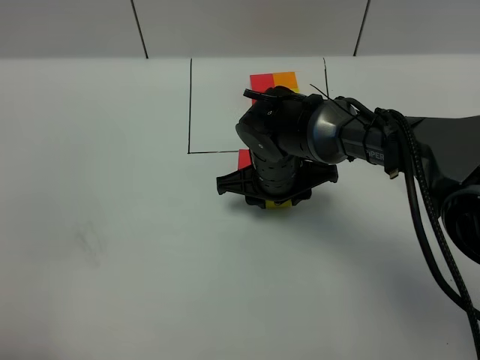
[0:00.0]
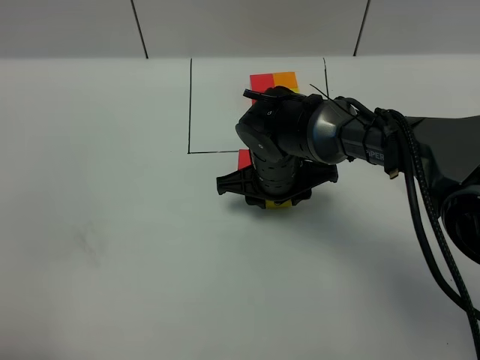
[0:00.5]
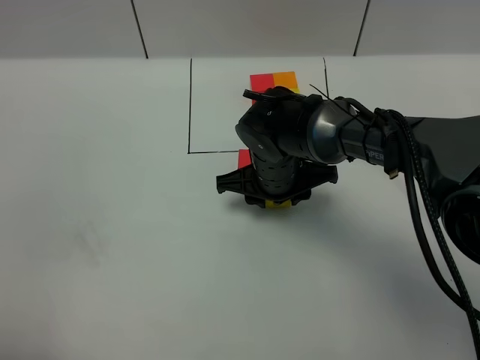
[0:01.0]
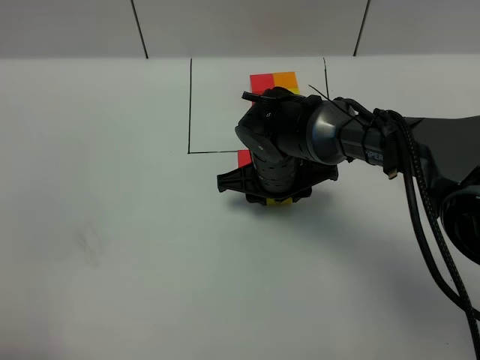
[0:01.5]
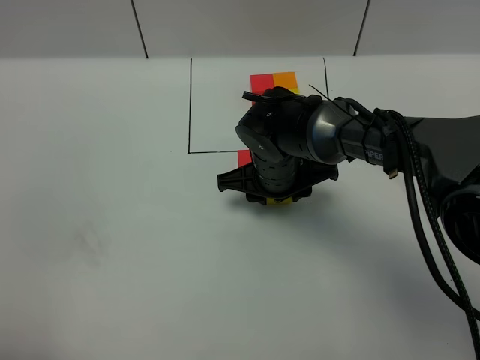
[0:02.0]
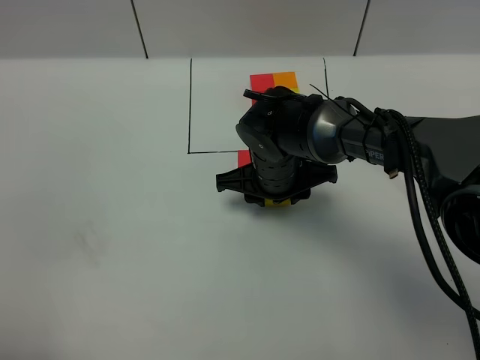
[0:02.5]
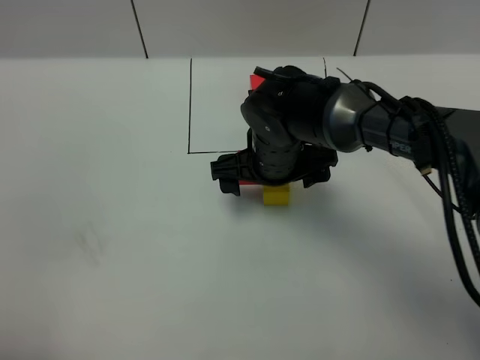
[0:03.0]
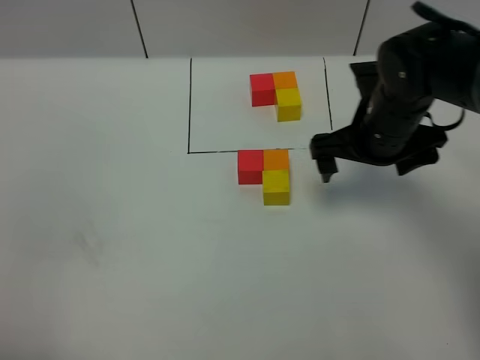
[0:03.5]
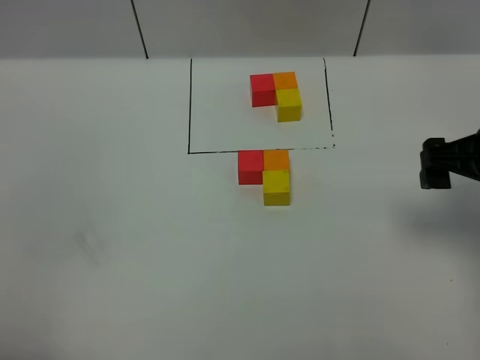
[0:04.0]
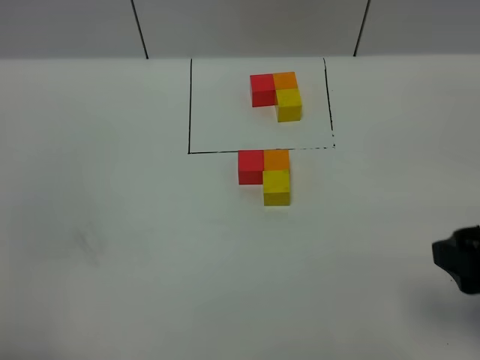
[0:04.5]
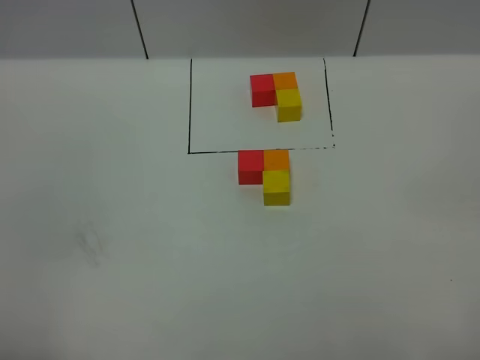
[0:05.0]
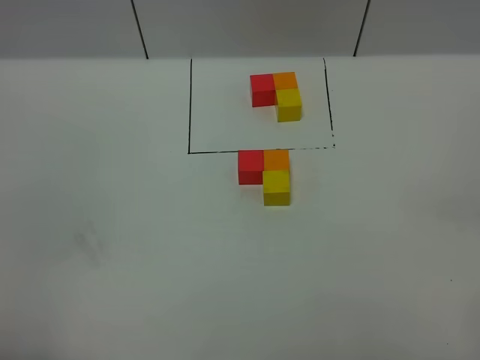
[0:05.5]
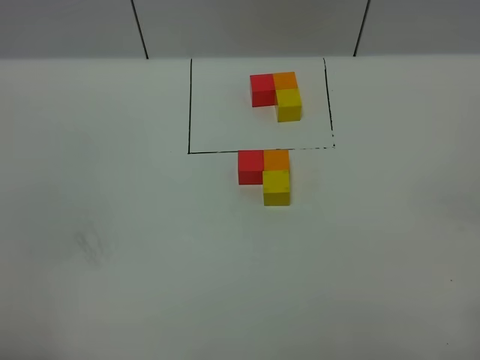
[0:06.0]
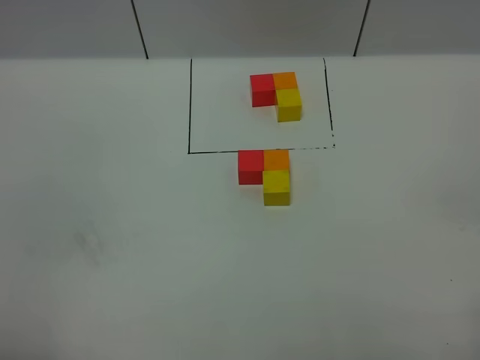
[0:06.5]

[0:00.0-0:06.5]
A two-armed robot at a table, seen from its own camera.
Task of the whole recording: According to the building block template in front, assemble the scattered blocks together.
Step, 0:00.0 to 0:02.5: Put the yellow build block on the behind of the orange build block.
0:00.0 to 0:02.0: The two grippers keep their place.
0:02.0 to 0:04.5: The right gripper moves backward, to the right and upward, about 35 cm, and opens up.
0:04.5 to 0:06.5: The right gripper goes roughly 15 cm backward.

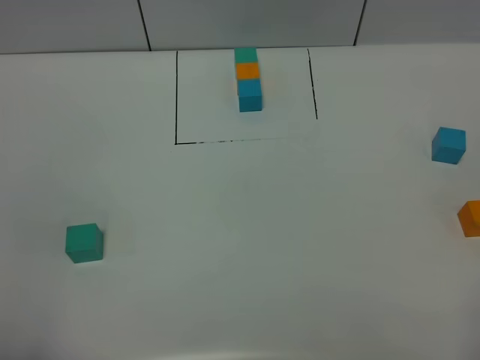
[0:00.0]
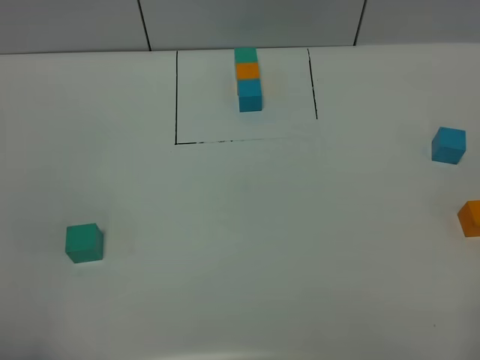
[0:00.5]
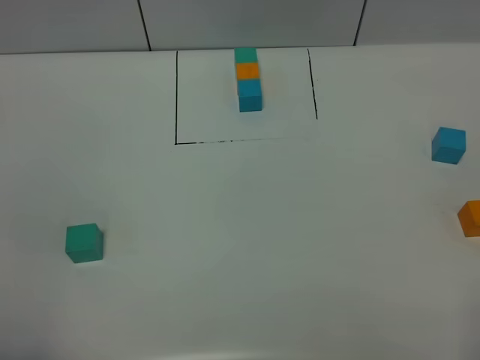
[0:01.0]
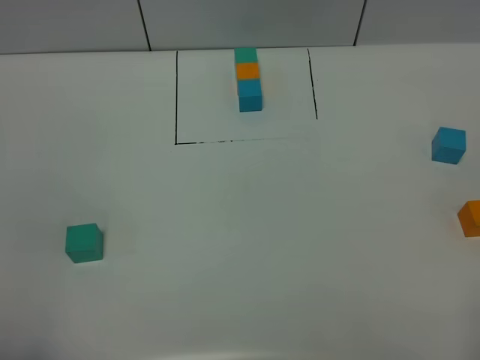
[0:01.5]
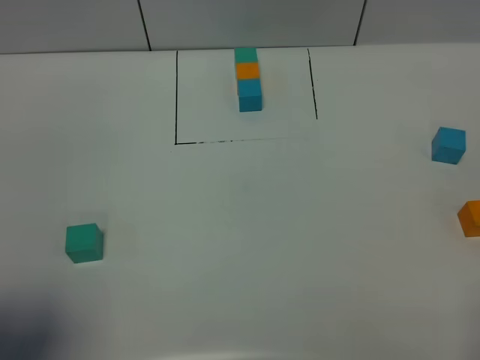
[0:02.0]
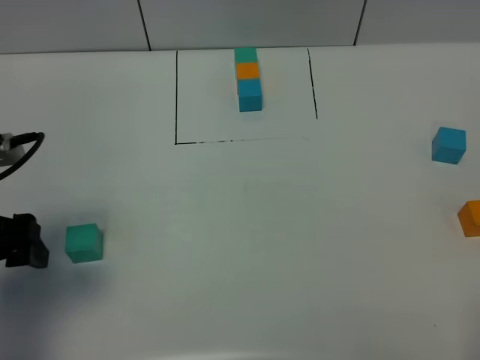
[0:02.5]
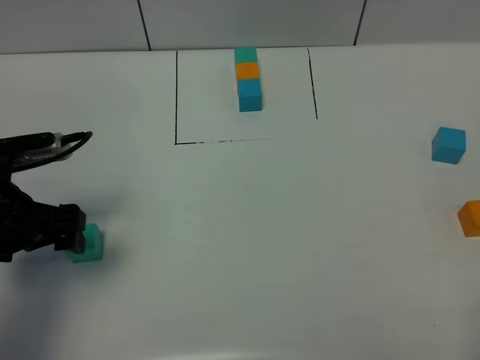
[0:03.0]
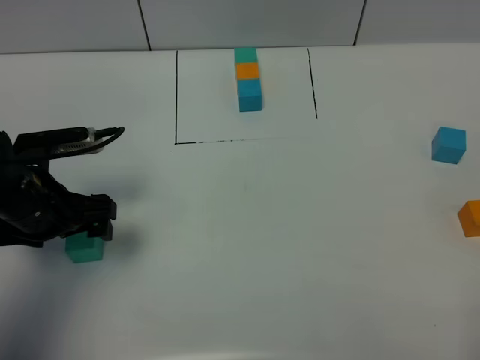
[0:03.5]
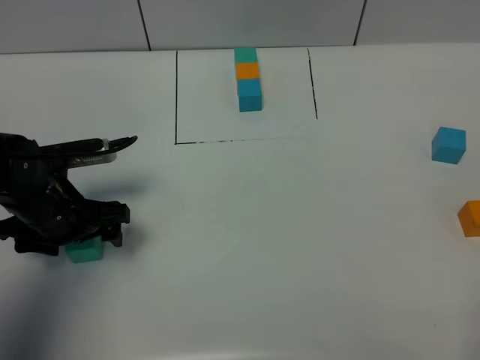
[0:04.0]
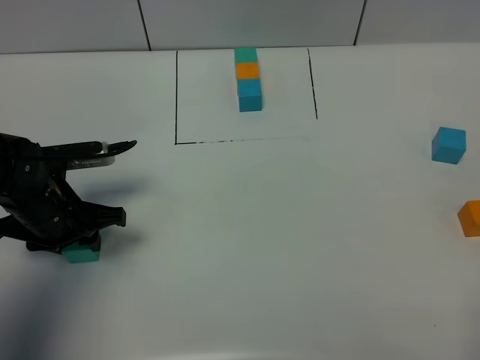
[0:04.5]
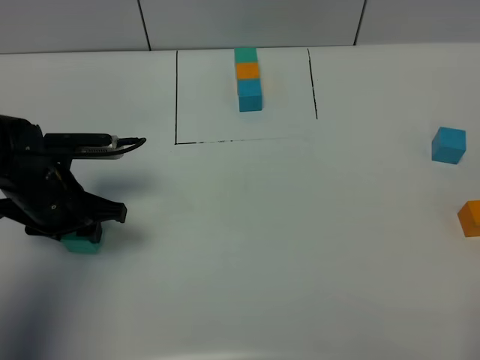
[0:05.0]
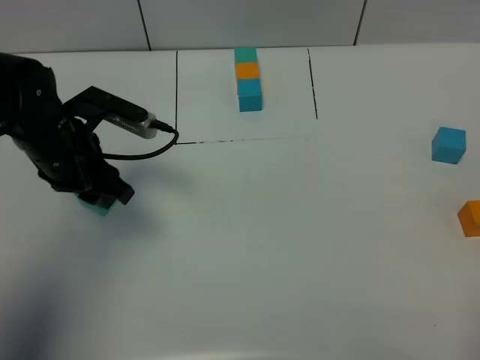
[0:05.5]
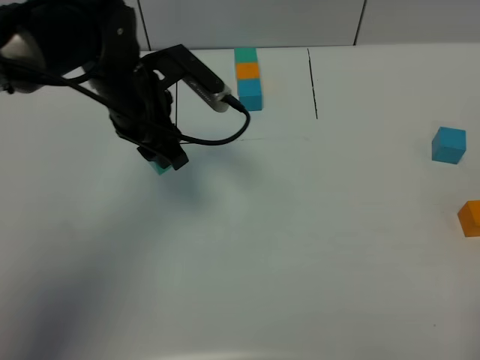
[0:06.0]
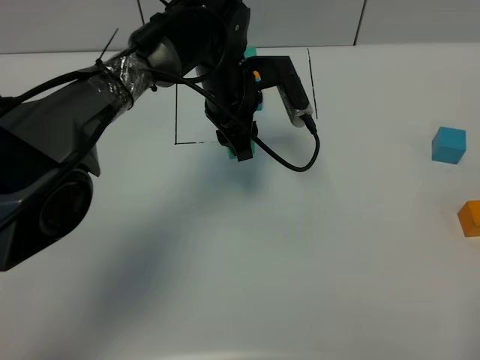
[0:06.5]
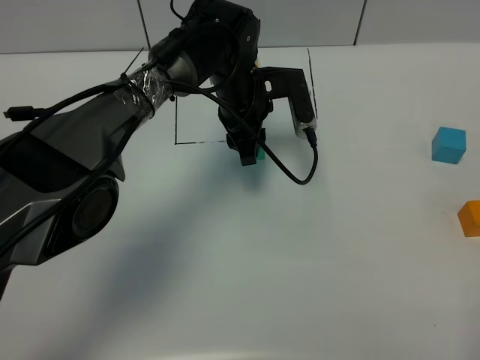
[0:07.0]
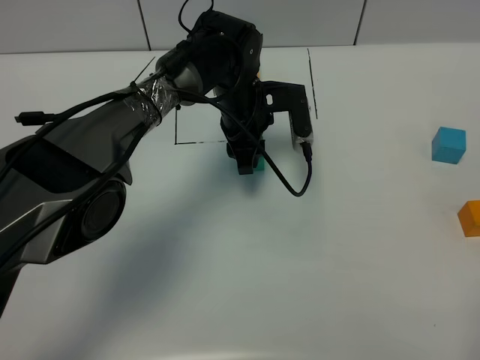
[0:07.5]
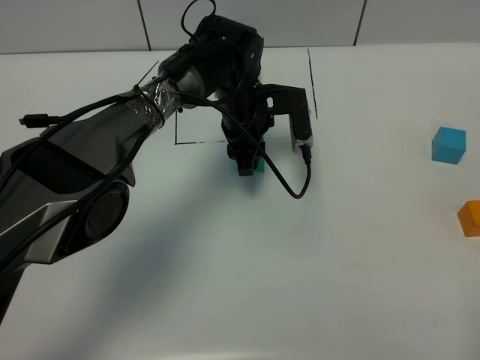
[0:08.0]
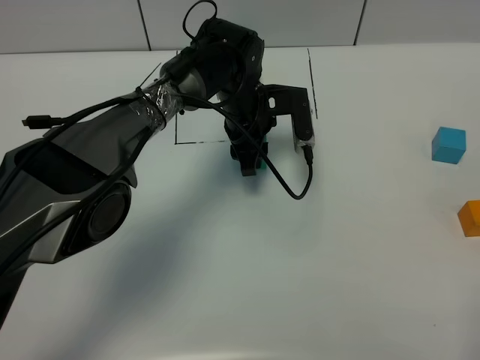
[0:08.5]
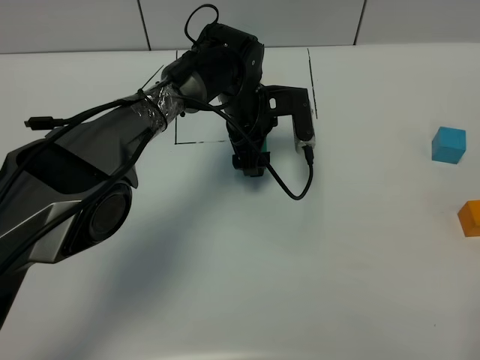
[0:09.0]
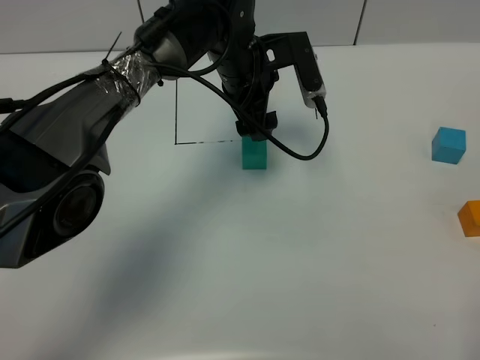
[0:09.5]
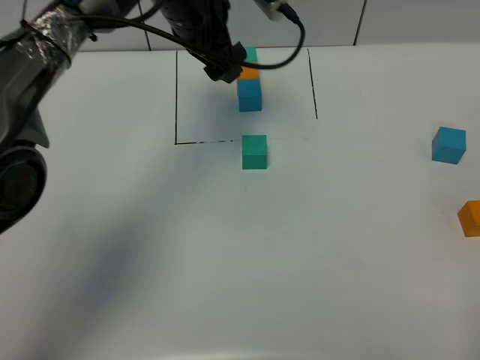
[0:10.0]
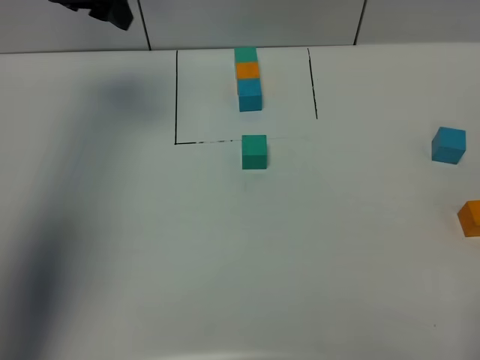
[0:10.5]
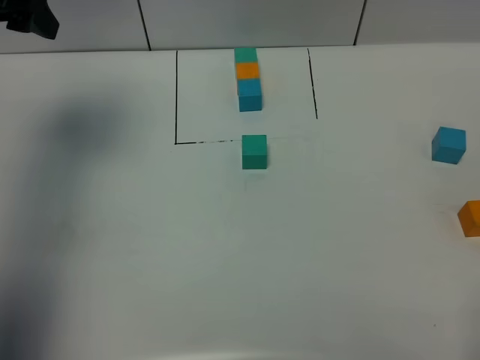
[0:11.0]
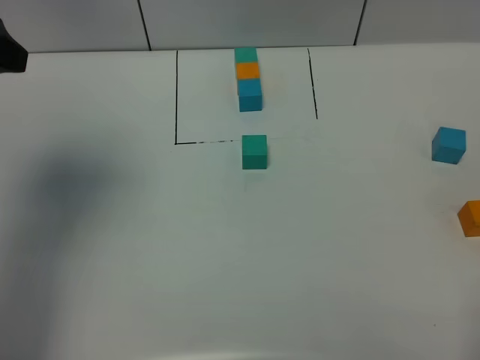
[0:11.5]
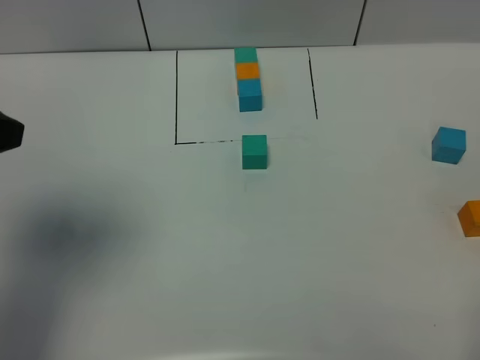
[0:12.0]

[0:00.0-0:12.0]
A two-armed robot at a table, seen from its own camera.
Task of the whole recording: According to the building block template in front, assemble the scattered blocks together.
Step, 0:00.0 to 0:08.5: Put the green build block in the center of the table.
0:00.0 to 0:02.0: The left gripper heads forward, covering approximately 10 cm.
0:02.0 to 0:04.0: The left gripper is displaced forward and downward by roughly 30 cm.
0:04.0 to 0:06.0: The left gripper moves to the right, forward and upward, roughly 15 cm, and closes its fingers.
0:06.0 to 0:08.0: The left gripper is displaced to the right, downward and forward by approximately 15 cm.
0:08.0 to 0:10.0: The left gripper is displaced upward and to the left by roughly 15 cm, and opens its fingers.
0:10.0 to 0:12.0: The left gripper is displaced backward and to the left by roughly 35 cm.

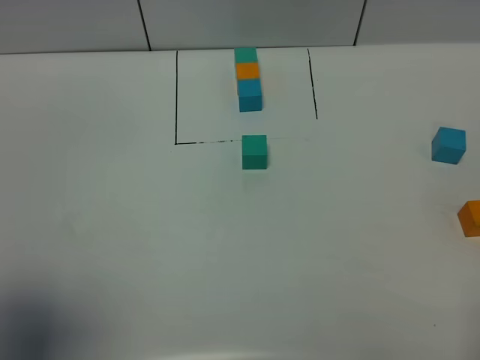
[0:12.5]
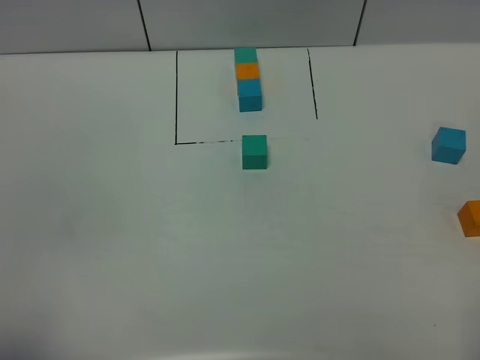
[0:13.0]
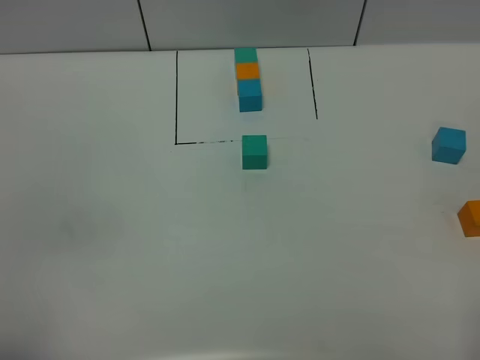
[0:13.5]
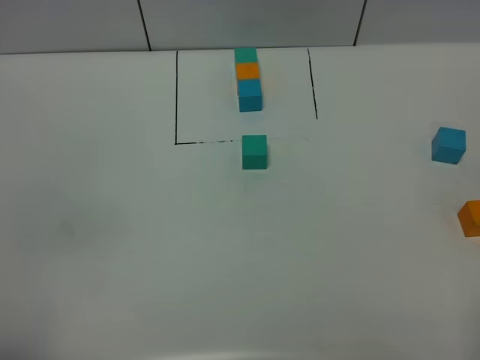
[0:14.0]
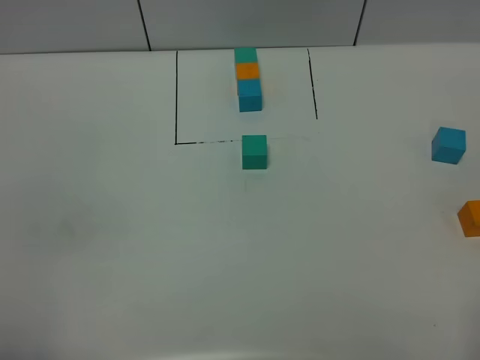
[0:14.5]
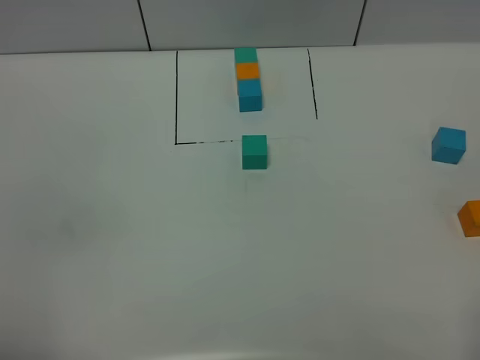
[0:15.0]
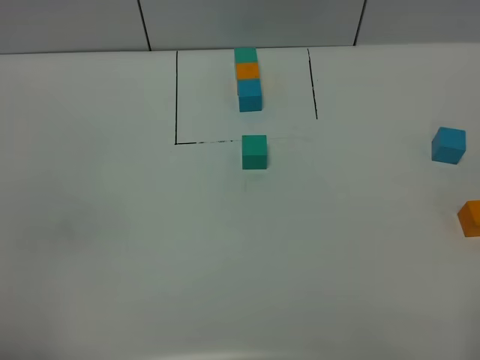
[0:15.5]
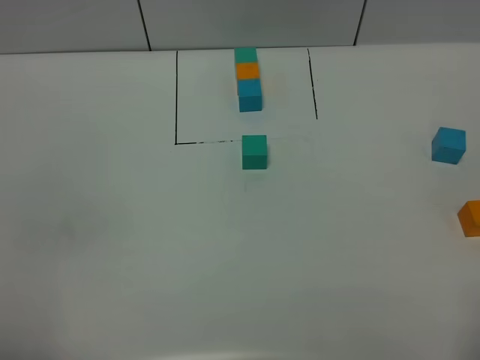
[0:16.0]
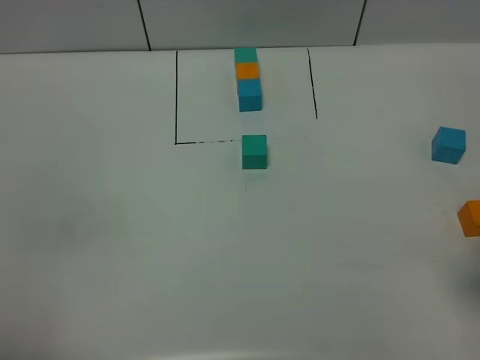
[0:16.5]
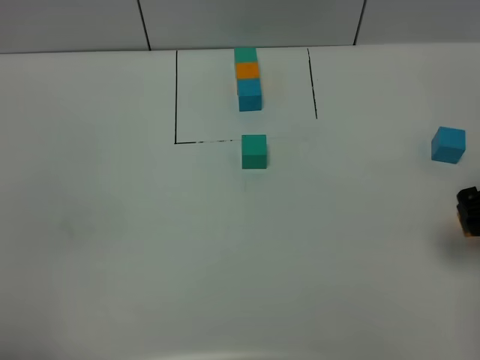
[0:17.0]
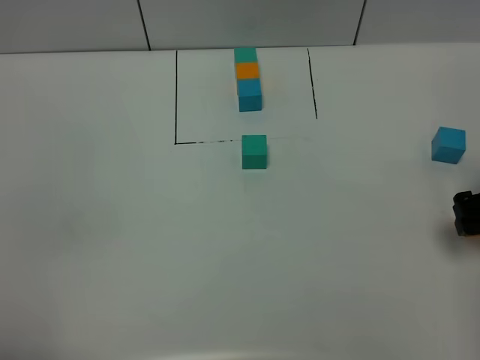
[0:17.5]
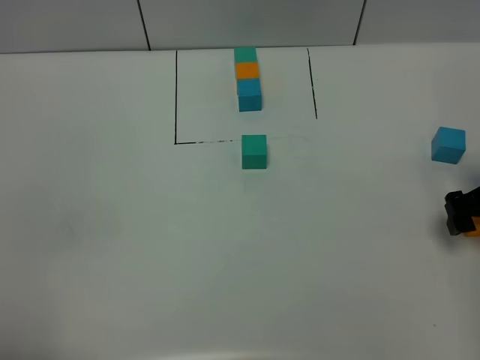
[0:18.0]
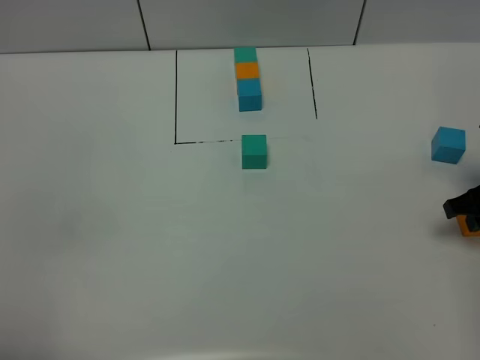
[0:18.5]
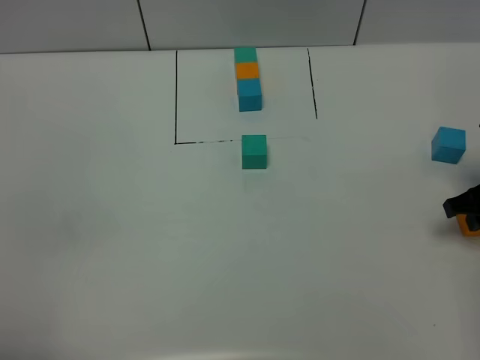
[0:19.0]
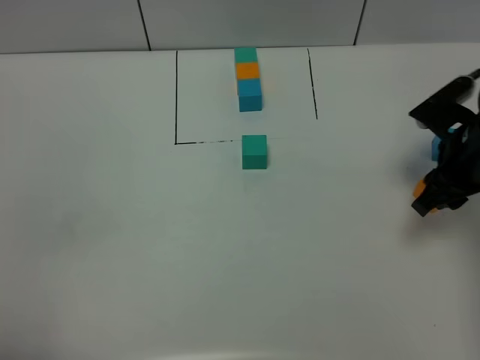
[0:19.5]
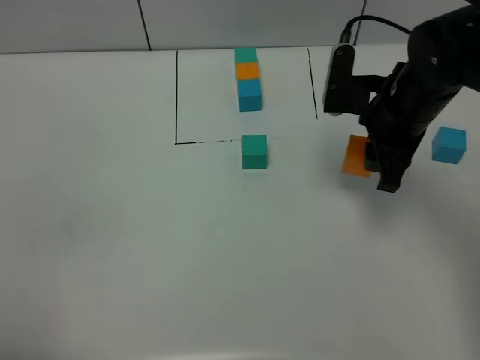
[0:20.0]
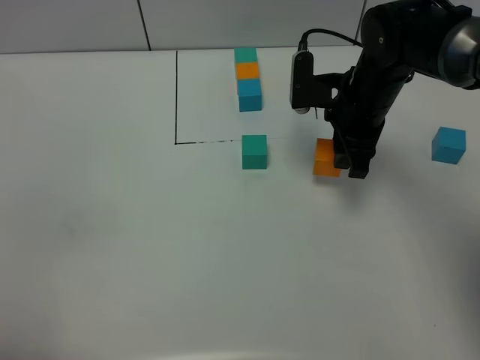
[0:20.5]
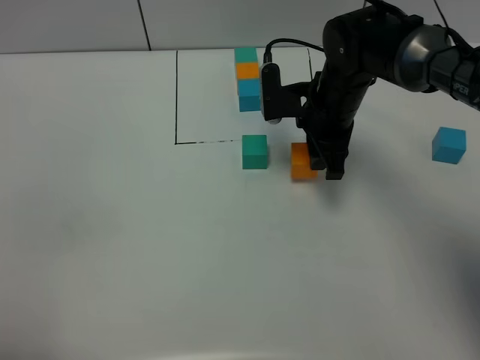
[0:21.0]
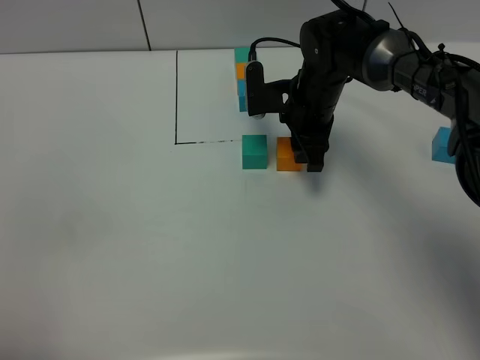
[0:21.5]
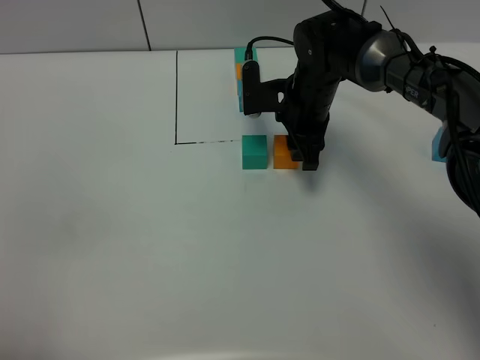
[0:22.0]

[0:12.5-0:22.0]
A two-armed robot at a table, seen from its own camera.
Task of the whole recording: According to the building block template in front, assemble the scattered blocks together.
0:12.5 to 0:14.5: The left gripper shifts roughly 10 cm backward and downward.
0:16.5 to 0:18.0: The right gripper shifts approximately 15 cm downward and forward.
0:18.0 to 0:20.0: The right gripper moves to the left and upward, approximately 15 cm, and closes its fingers.
0:20.0 to 0:22.0: The right gripper is displaced to the left, forward and downward by about 15 cm.
